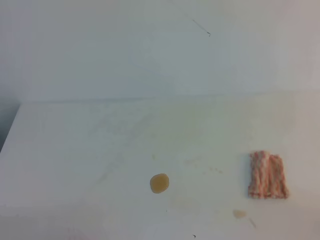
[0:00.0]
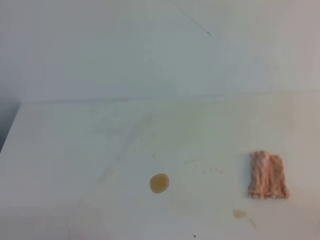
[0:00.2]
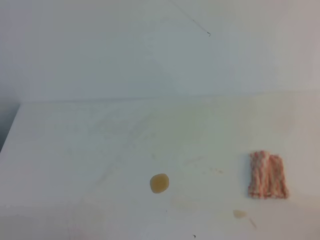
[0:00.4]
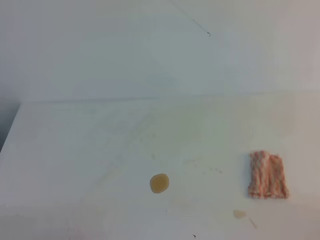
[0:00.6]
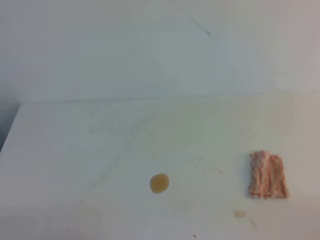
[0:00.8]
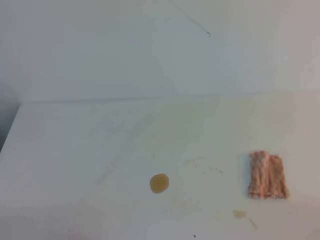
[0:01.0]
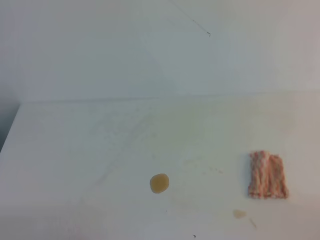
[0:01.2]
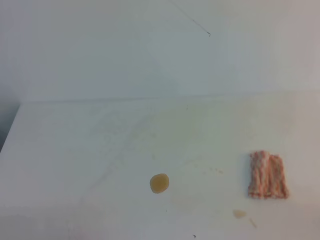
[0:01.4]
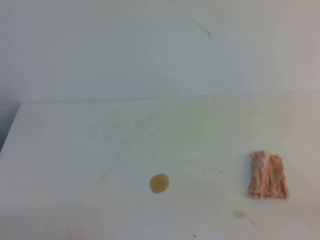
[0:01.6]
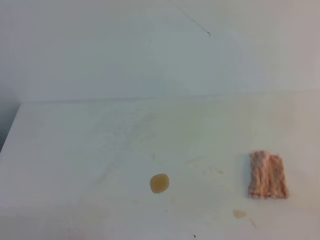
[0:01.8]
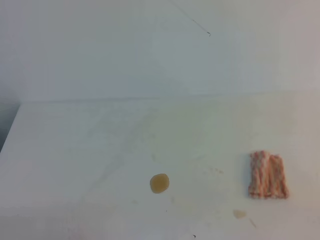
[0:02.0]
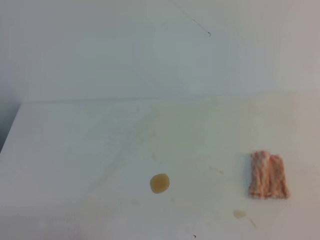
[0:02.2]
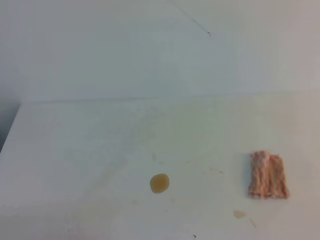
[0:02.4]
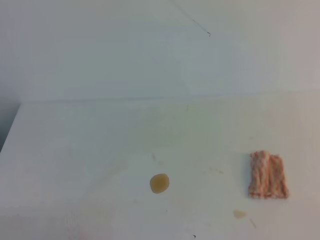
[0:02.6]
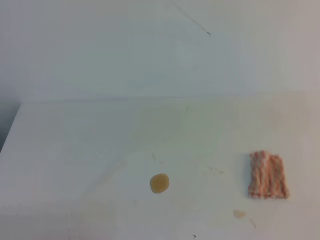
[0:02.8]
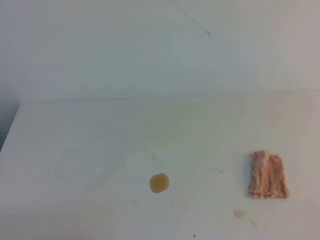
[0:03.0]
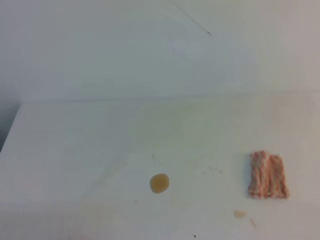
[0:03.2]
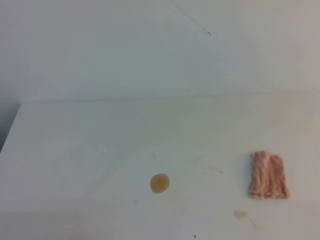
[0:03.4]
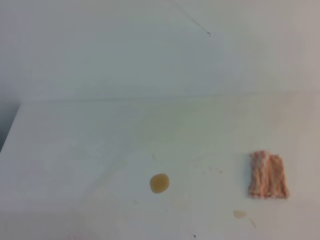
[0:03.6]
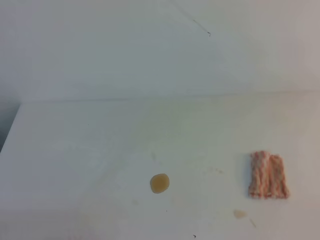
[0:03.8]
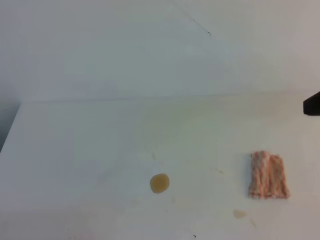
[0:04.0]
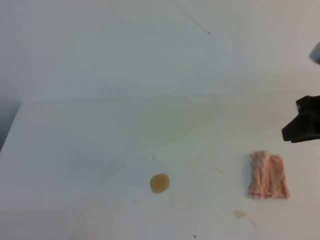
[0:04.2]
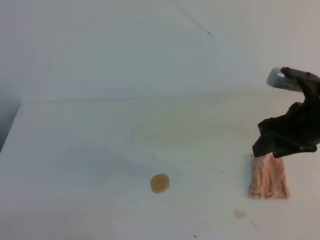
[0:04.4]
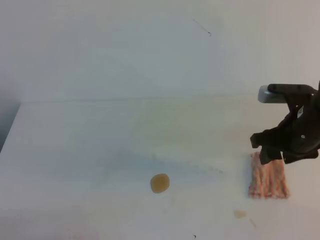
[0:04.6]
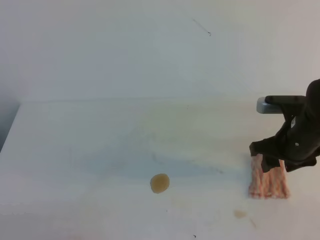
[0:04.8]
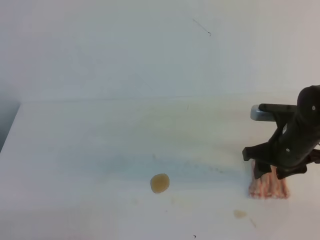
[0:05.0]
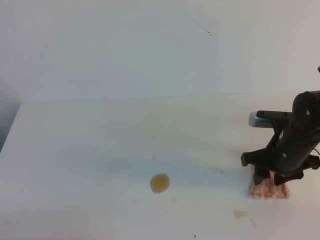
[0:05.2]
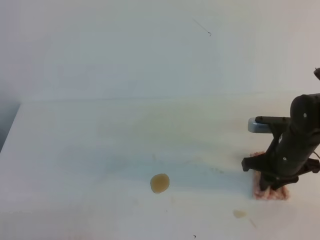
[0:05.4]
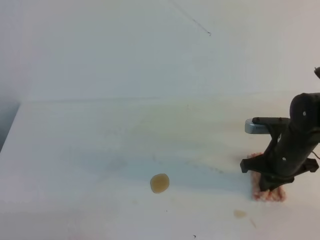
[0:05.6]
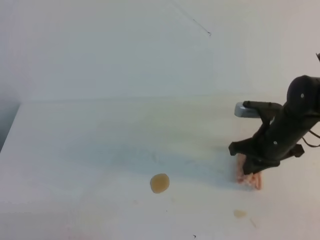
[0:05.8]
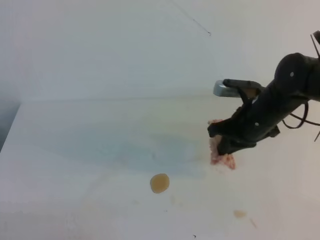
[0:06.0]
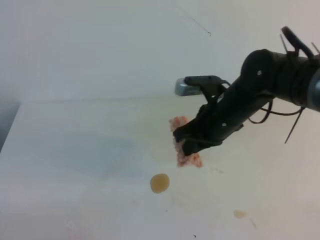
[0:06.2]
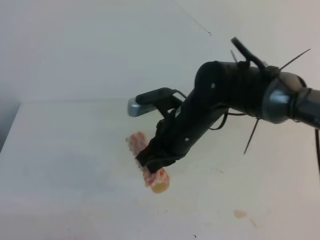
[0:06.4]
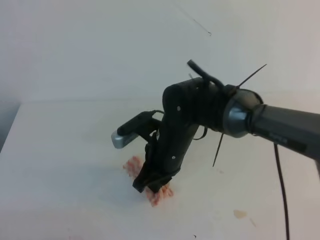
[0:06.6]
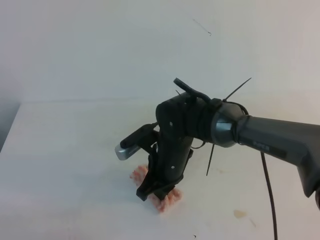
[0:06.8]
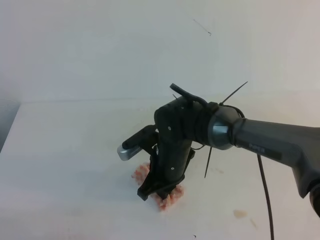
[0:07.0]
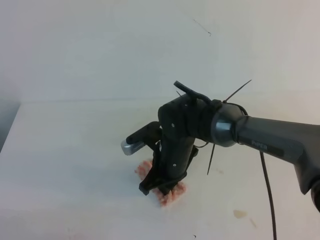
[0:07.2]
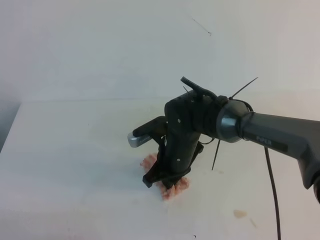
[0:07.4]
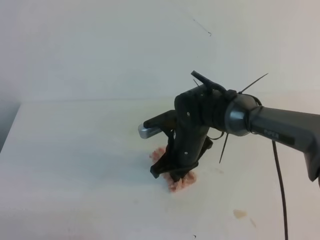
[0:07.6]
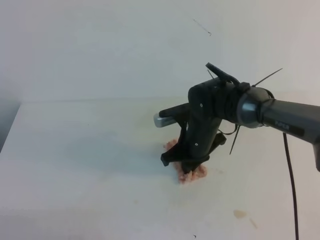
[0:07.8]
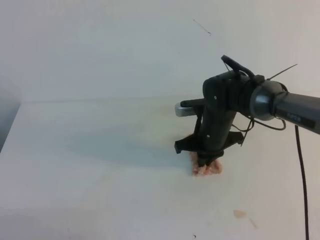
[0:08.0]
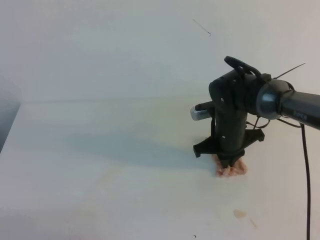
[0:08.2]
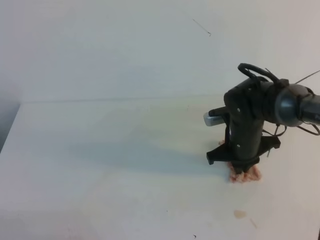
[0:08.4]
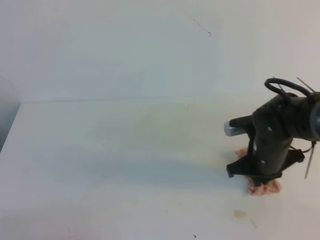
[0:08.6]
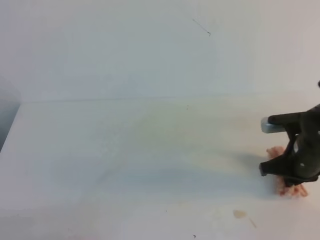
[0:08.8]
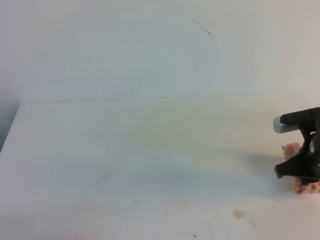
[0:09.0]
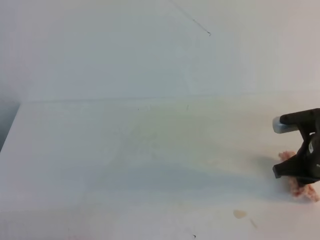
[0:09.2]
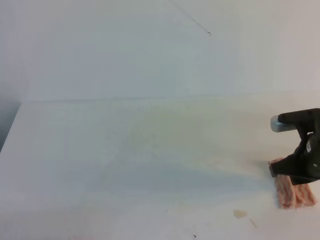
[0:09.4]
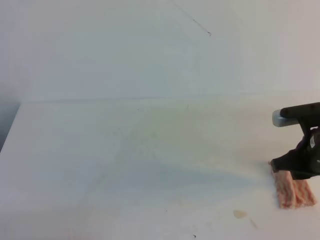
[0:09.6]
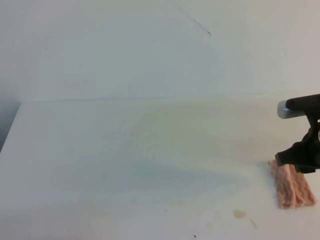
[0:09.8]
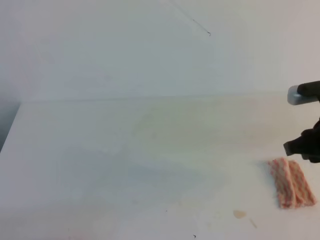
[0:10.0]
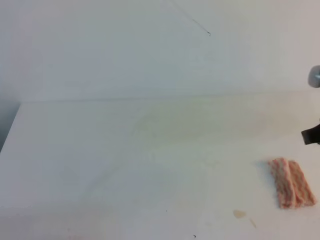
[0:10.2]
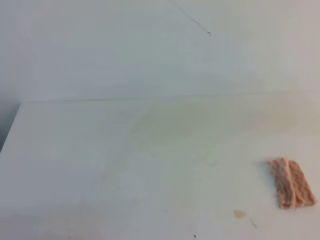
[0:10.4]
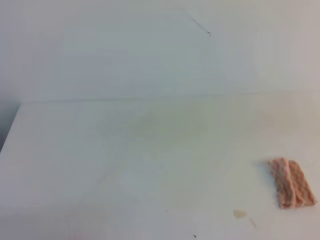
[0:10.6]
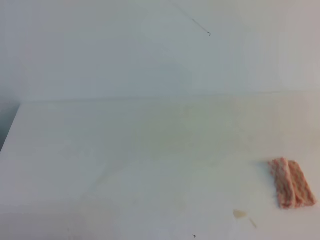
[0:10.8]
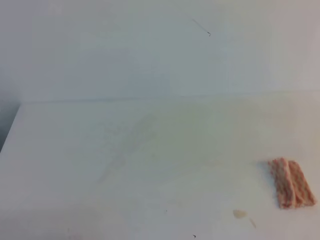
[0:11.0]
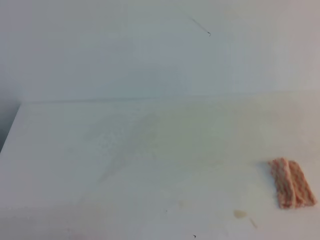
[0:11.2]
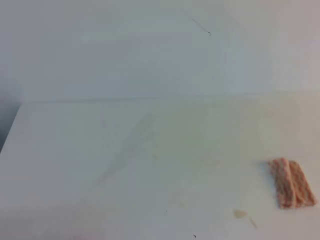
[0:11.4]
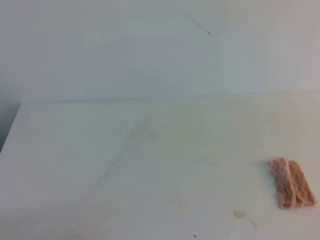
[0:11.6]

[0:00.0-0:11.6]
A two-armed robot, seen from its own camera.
0:00.0 to 0:01.4: Both grippers stay put.
0:02.8 to 0:04.4: The right gripper goes about 30 cm forward and downward, and opens up.
0:04.4 to 0:05.8: The right gripper shifts approximately 10 cm downward and to the left, and closes.
0:05.8 to 0:07.2: The right gripper moves to the left, about 20 cm.
0:07.2 to 0:08.8: The right gripper shifts some 20 cm to the right.
0:08.8 to 0:10.2: The right gripper heads upward and backward, covering about 15 cm, and opens up.
0:10.2 to 0:11.6: The right gripper travels backward, upward and to the right by some 25 cm, and closes up.

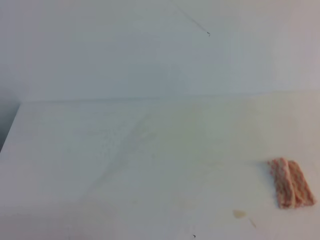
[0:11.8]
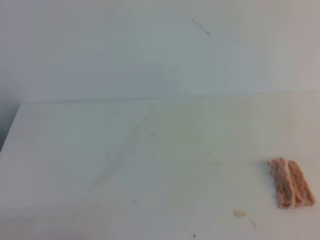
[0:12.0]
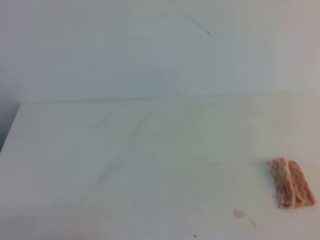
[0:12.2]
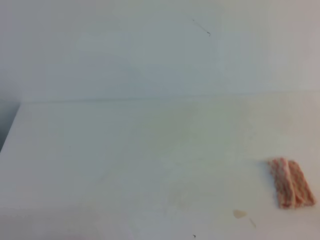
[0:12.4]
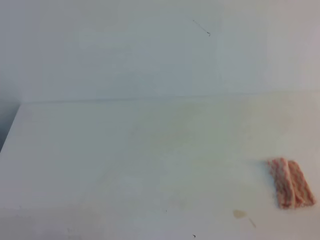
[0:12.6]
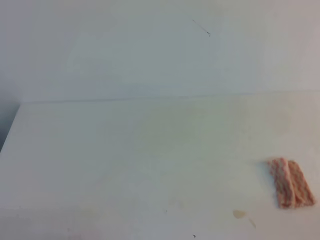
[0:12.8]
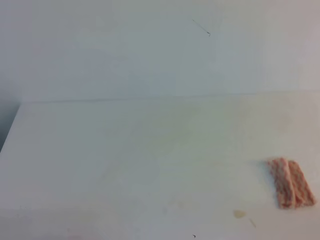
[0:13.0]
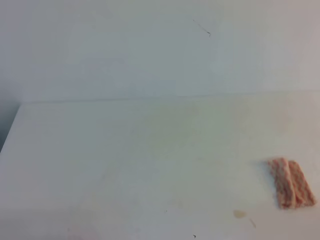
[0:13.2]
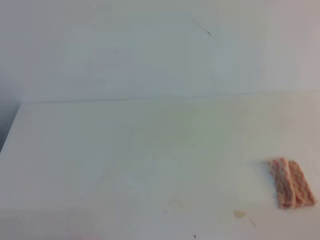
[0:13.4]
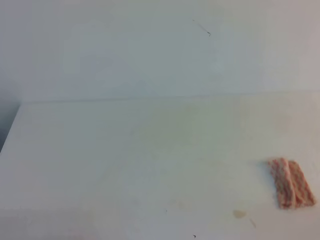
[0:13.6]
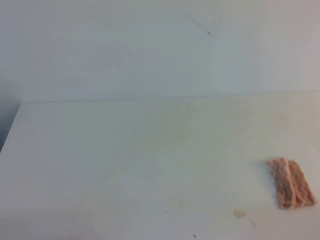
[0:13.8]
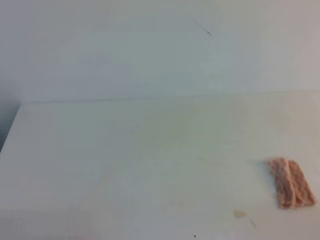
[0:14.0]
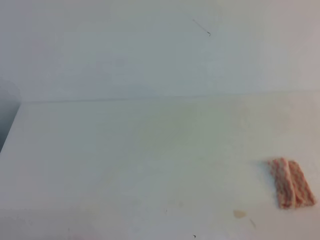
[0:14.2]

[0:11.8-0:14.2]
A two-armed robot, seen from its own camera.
0:13.0 to 0:14.2: Both grippers stay about where they are.
